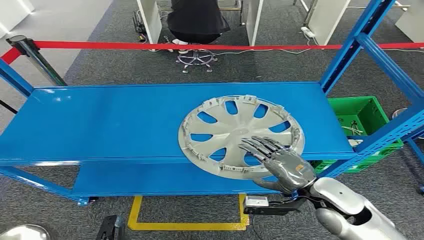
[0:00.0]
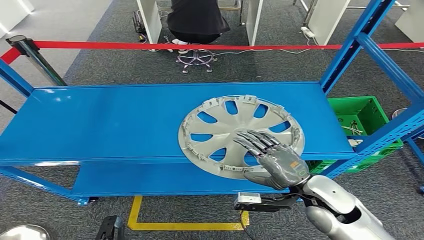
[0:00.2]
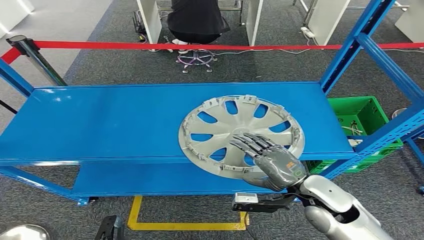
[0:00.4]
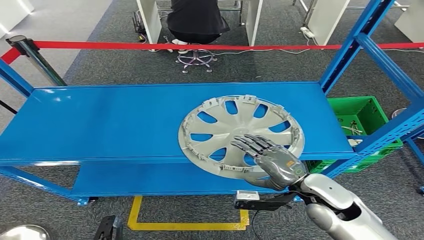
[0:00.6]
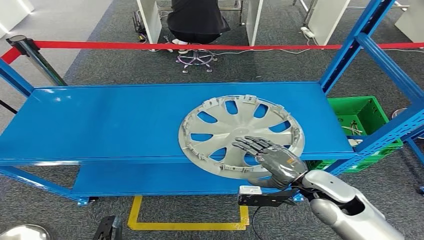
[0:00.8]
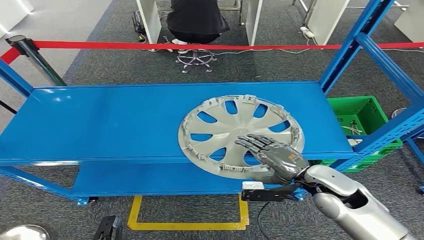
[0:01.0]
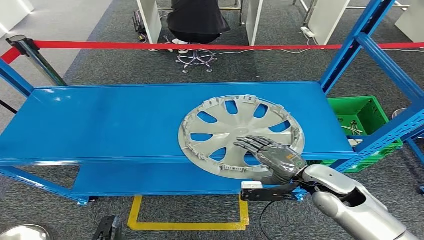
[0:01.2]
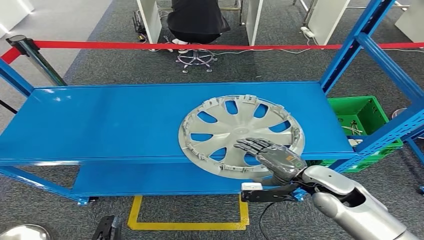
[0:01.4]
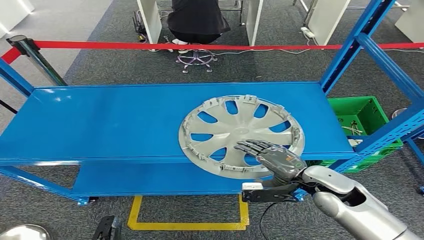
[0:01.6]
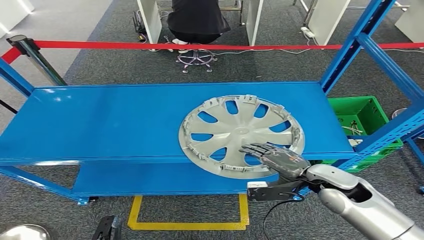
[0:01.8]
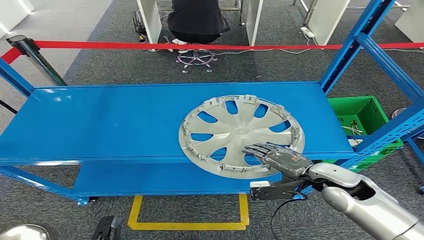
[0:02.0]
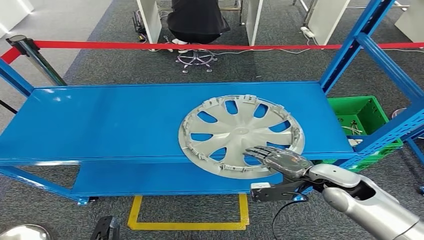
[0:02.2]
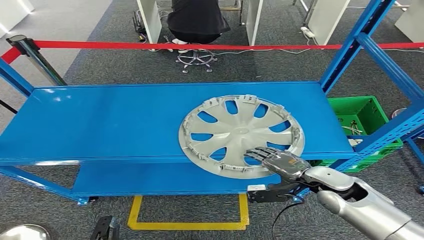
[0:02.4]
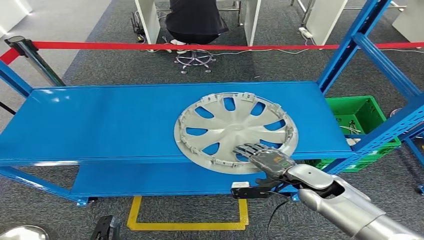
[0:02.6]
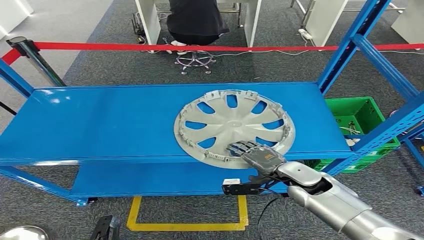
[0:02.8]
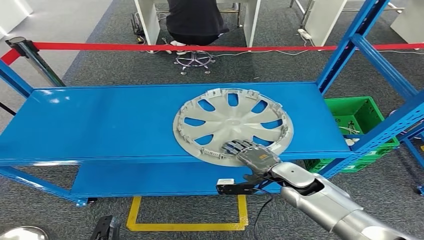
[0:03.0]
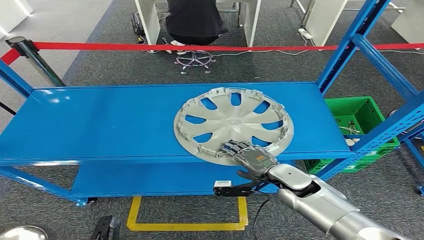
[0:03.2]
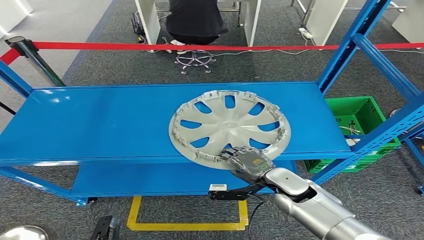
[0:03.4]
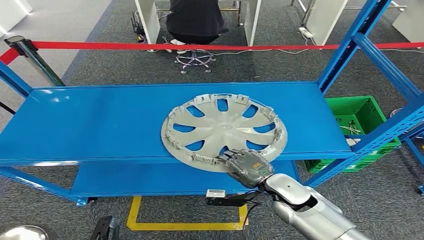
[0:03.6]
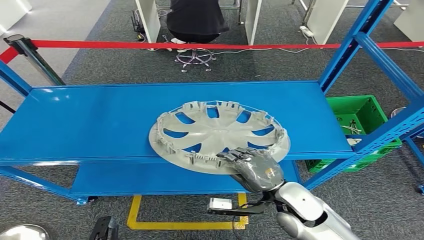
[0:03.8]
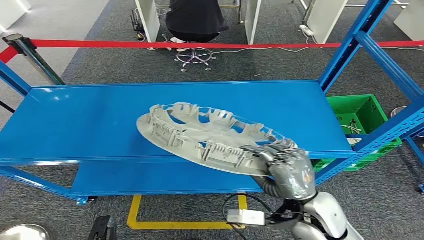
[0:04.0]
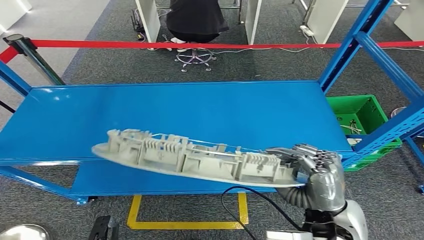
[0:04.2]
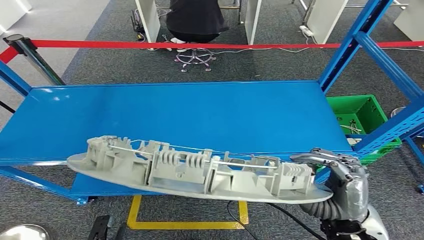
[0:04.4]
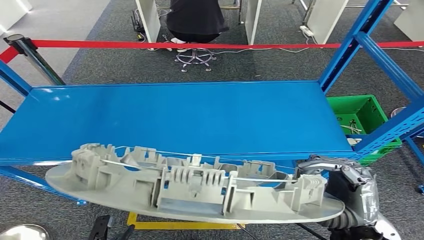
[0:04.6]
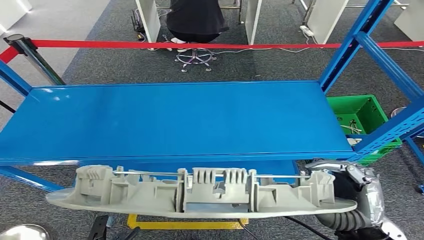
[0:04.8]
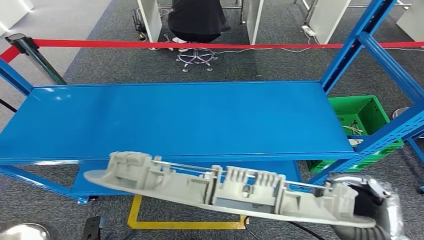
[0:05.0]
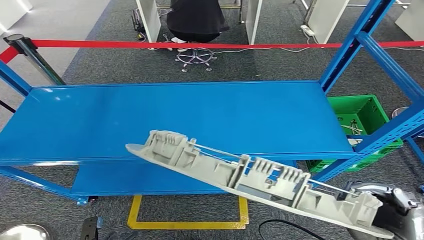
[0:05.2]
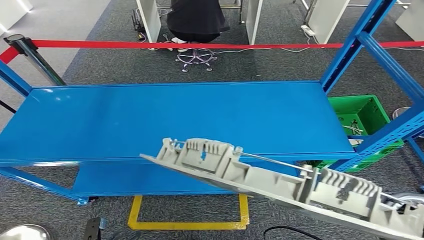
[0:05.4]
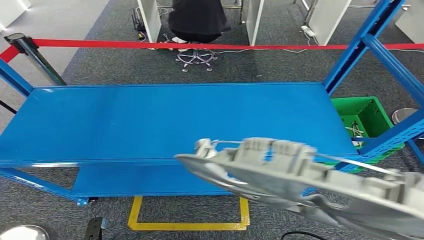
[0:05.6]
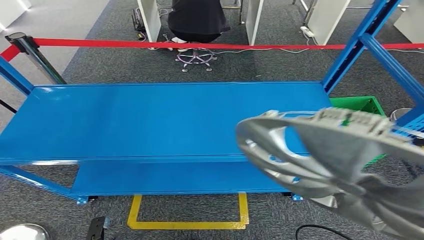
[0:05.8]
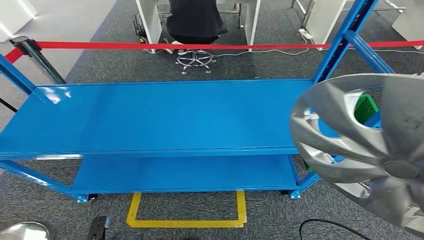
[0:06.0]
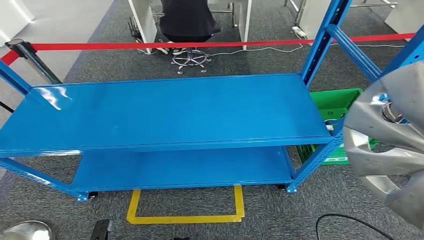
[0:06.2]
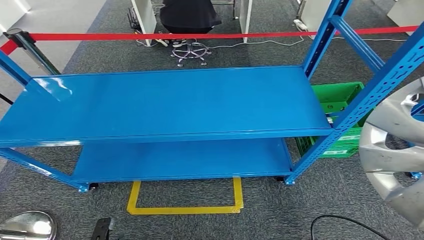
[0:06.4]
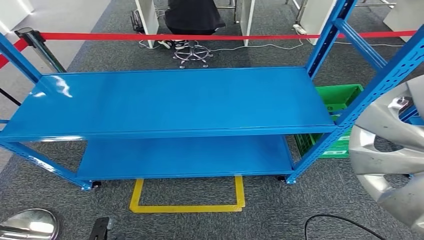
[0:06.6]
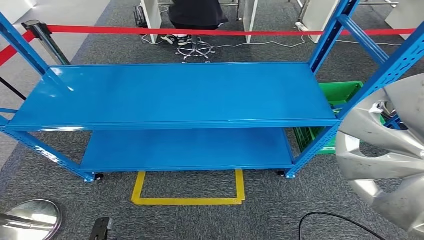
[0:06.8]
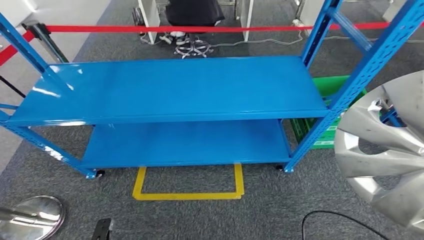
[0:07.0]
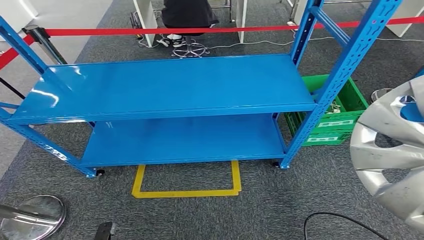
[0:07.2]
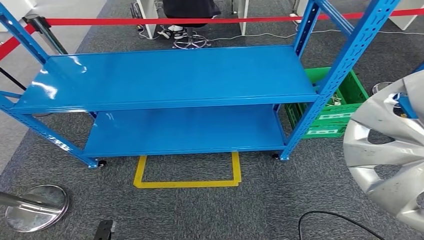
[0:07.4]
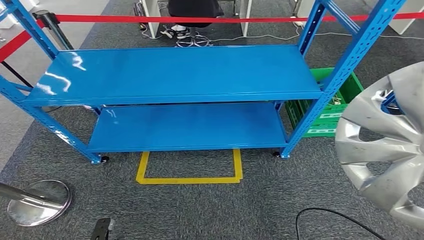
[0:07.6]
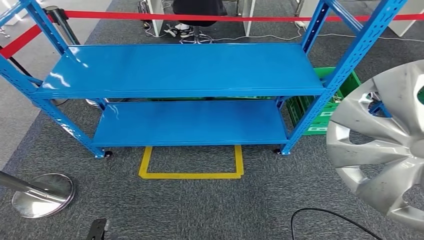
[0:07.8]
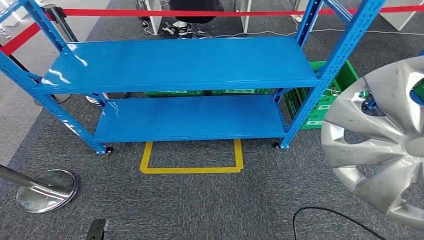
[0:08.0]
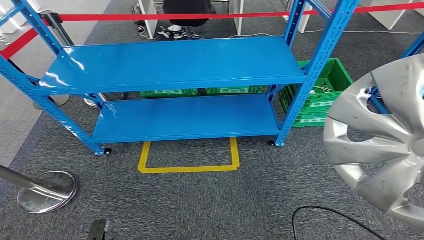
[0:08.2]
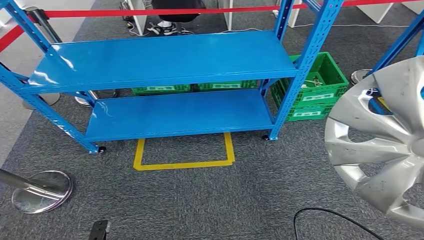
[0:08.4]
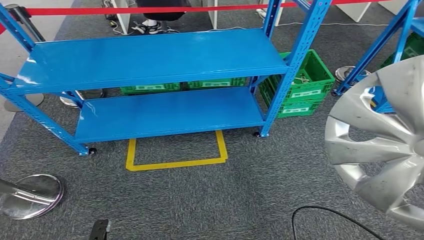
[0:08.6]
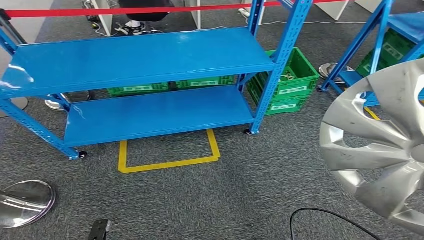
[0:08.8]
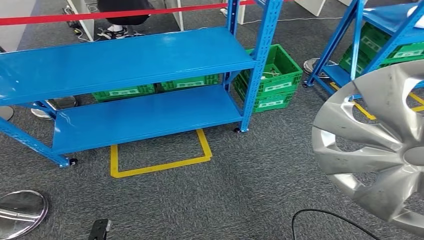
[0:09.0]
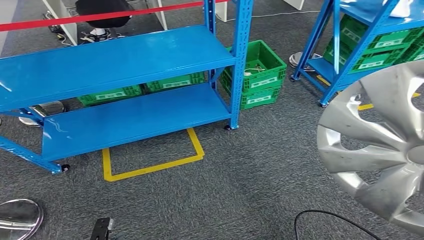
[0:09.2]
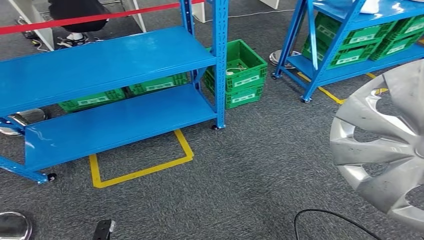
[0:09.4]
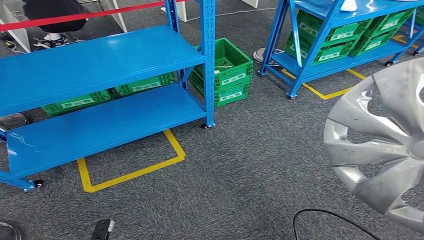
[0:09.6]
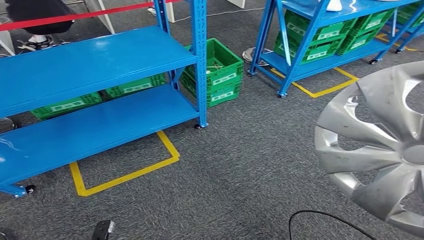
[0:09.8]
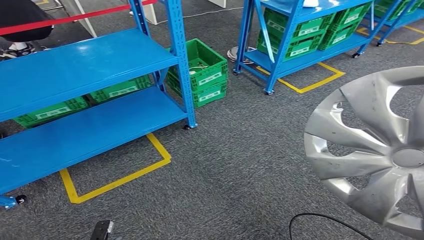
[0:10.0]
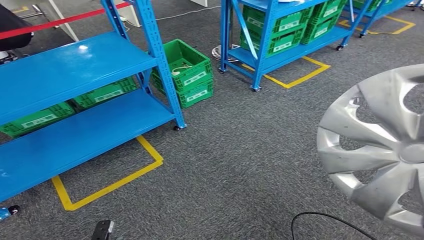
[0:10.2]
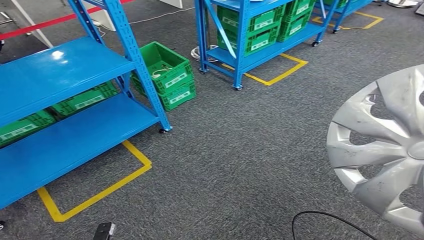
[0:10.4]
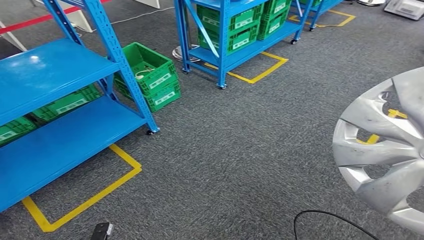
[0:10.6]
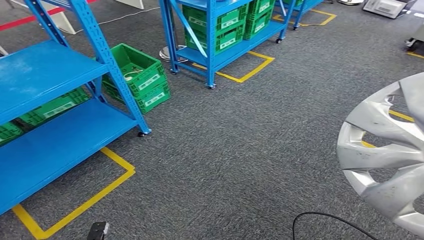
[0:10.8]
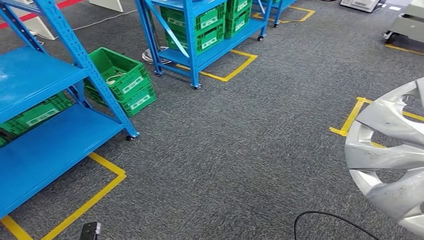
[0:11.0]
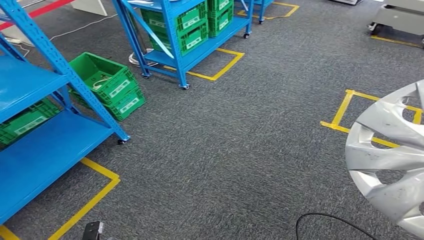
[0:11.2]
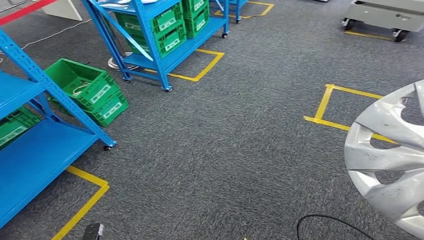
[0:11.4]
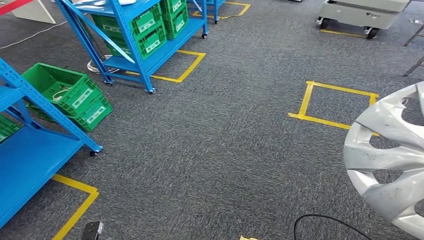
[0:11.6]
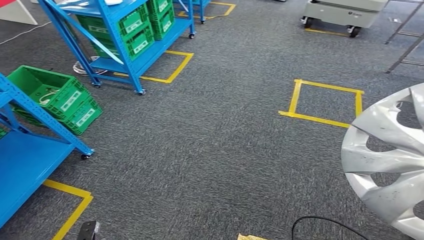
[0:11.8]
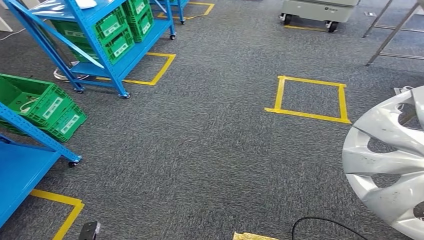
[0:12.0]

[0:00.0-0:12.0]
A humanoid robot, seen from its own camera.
Step, 0:00.0 to 0:05.0: Pick up the small component from the shelf.

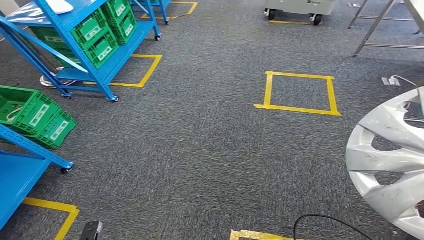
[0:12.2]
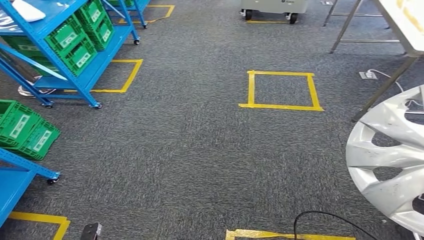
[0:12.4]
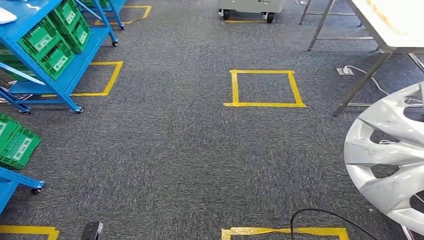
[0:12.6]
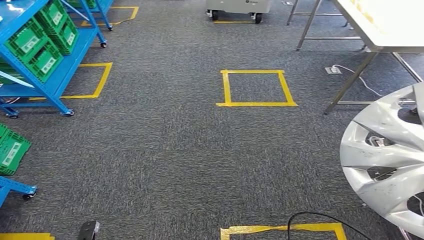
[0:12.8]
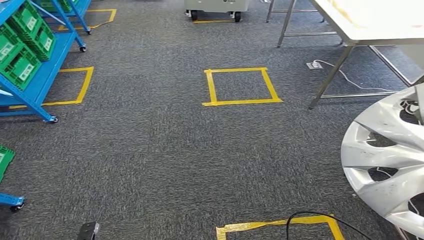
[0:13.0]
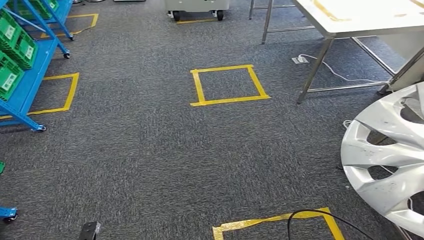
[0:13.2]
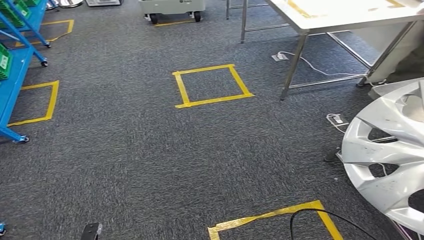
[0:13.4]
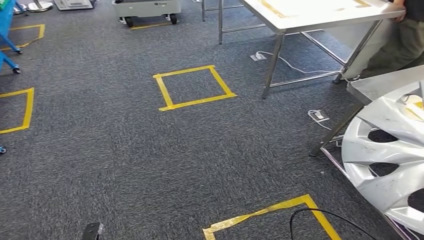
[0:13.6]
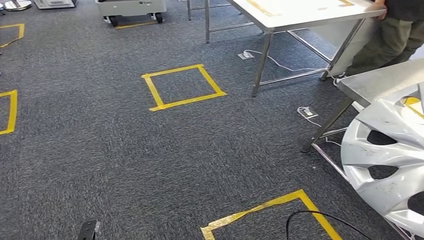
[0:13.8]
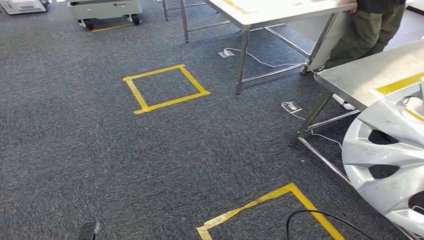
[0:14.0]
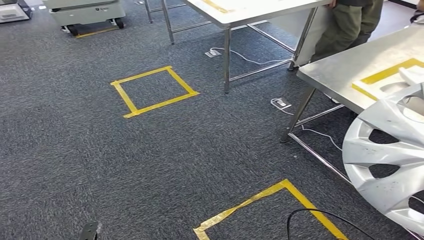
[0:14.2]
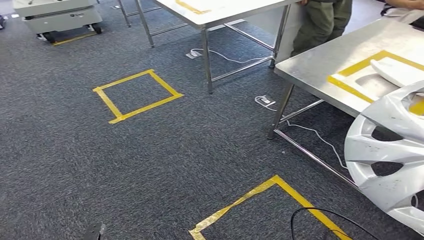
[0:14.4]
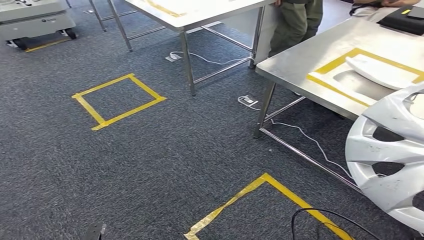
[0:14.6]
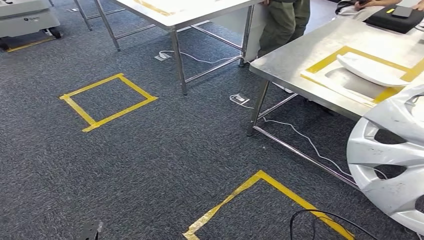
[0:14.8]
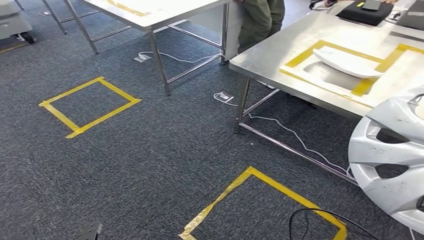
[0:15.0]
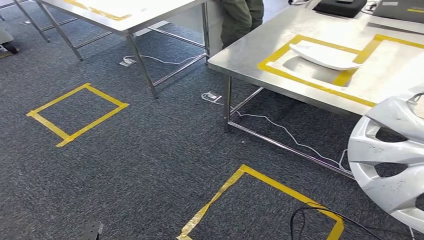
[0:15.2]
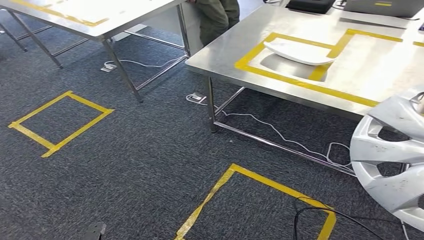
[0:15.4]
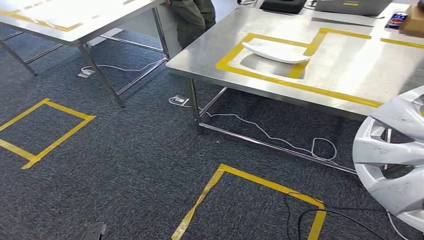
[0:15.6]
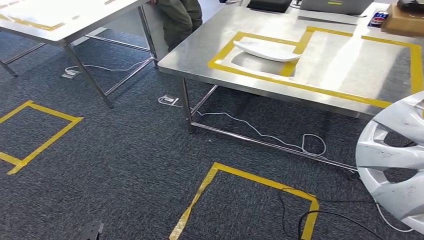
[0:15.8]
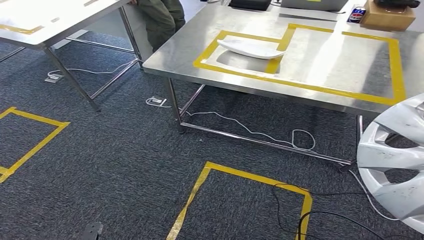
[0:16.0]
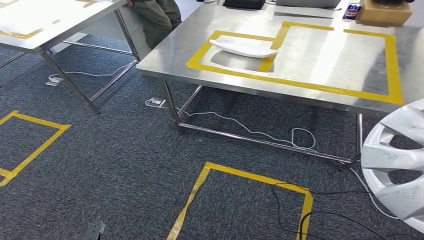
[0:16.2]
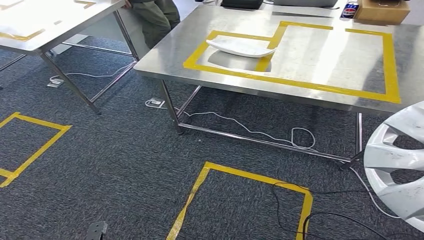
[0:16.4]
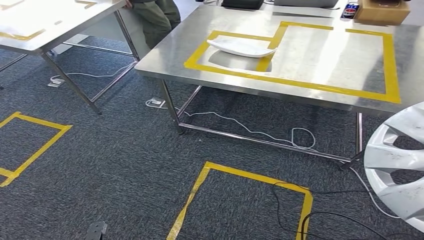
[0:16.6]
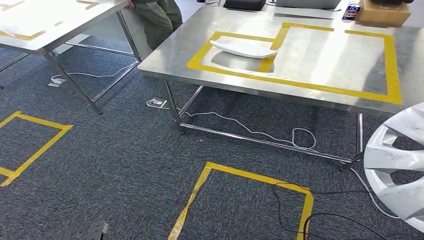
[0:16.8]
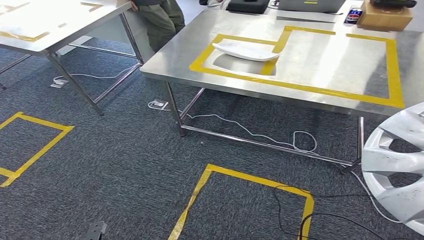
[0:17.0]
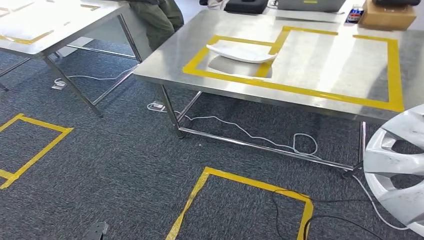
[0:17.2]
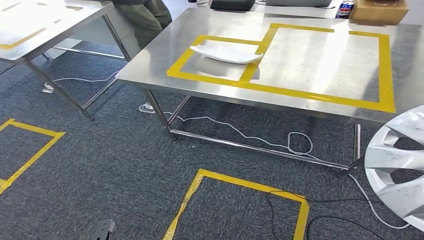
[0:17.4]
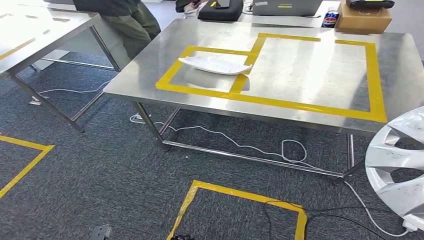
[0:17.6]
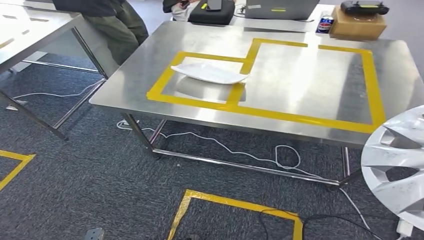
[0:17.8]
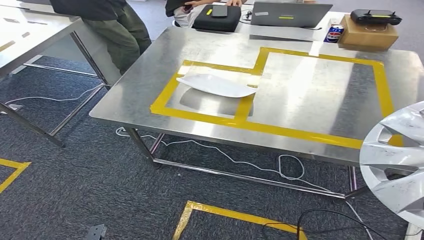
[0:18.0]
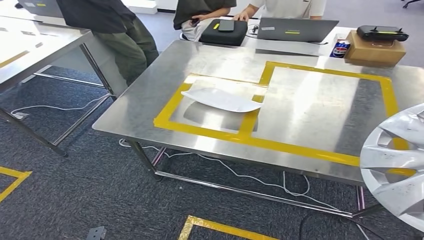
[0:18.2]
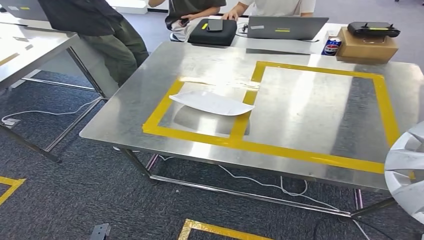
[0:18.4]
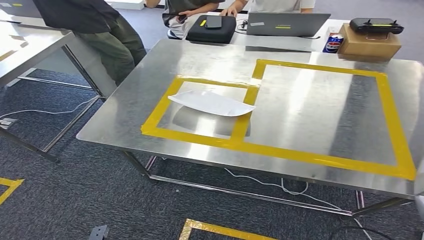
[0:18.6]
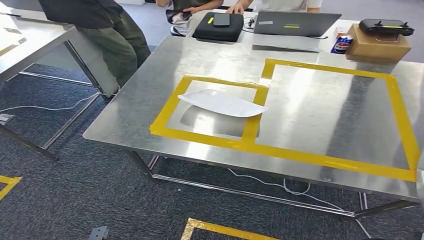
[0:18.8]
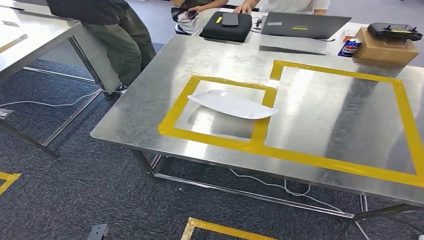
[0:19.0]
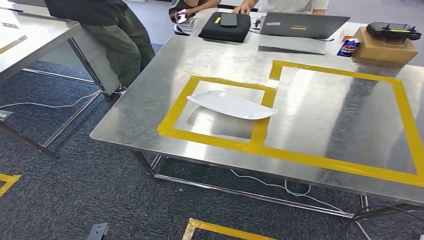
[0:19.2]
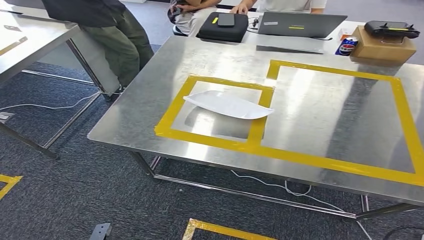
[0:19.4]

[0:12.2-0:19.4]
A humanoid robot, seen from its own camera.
Step, 0:12.2 to 0:18.4: Move the small component to the workbench.
